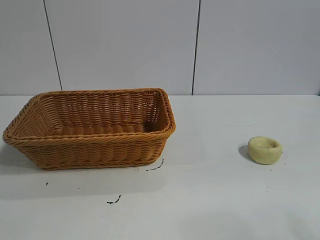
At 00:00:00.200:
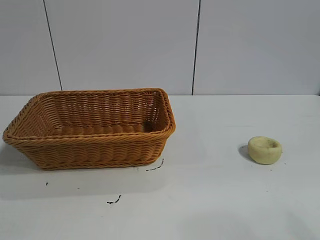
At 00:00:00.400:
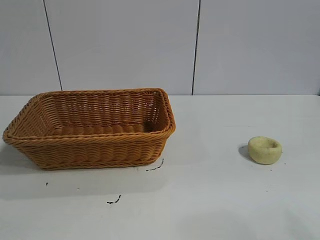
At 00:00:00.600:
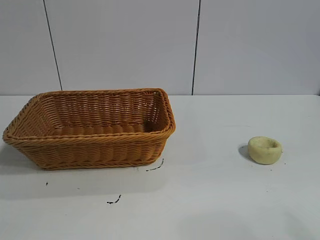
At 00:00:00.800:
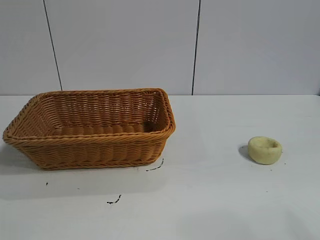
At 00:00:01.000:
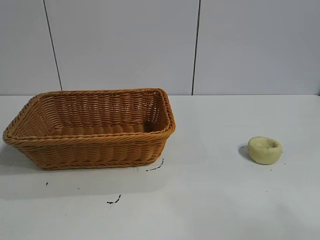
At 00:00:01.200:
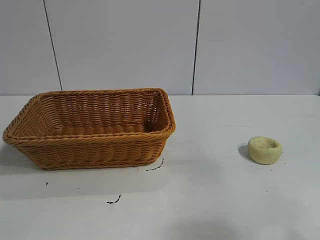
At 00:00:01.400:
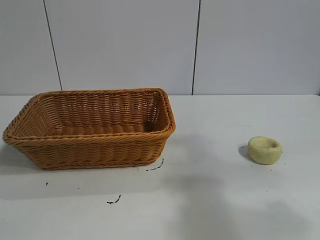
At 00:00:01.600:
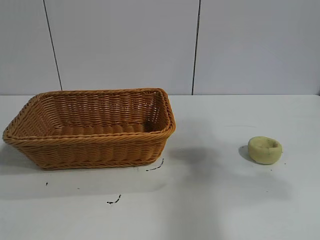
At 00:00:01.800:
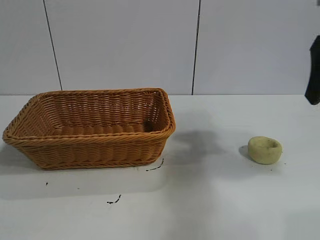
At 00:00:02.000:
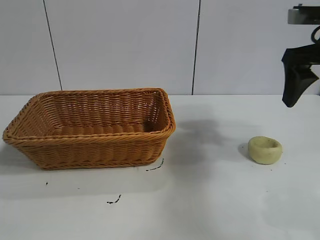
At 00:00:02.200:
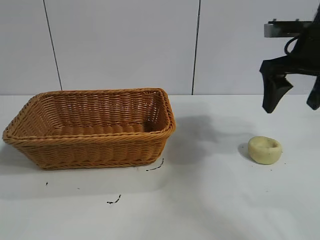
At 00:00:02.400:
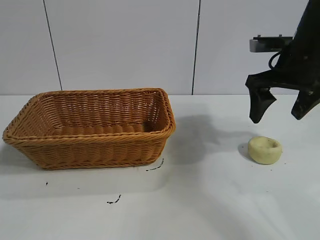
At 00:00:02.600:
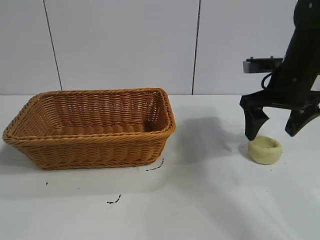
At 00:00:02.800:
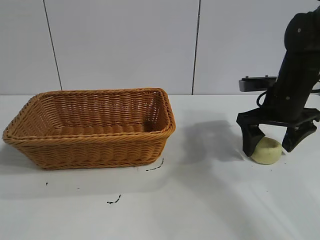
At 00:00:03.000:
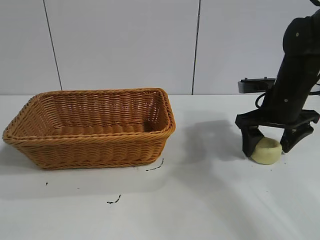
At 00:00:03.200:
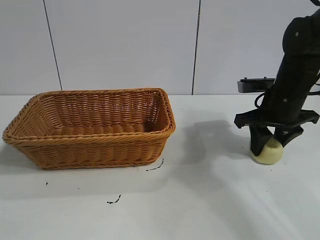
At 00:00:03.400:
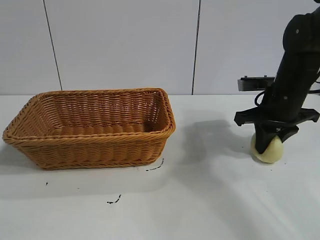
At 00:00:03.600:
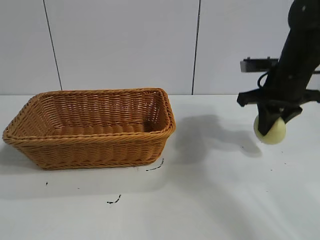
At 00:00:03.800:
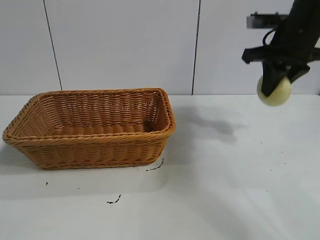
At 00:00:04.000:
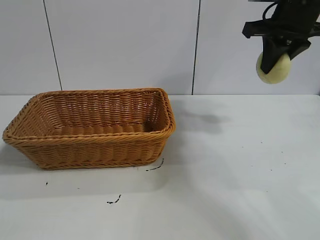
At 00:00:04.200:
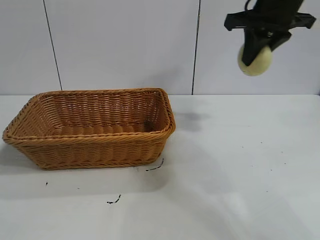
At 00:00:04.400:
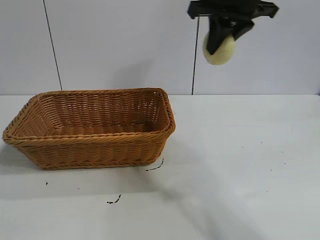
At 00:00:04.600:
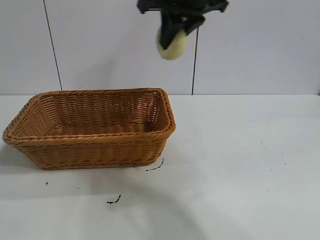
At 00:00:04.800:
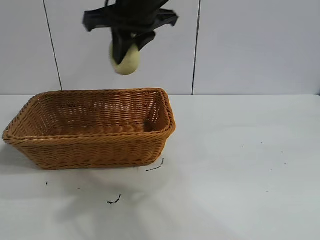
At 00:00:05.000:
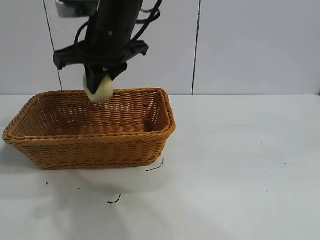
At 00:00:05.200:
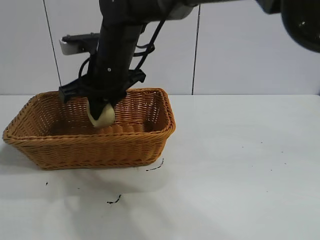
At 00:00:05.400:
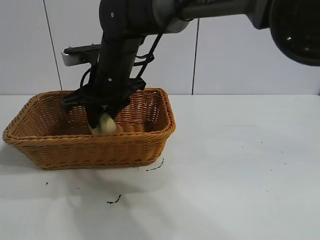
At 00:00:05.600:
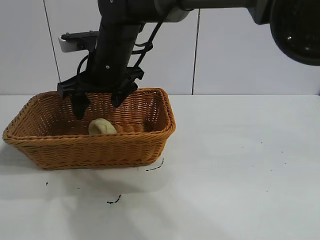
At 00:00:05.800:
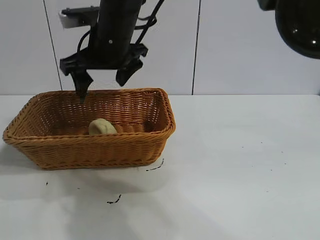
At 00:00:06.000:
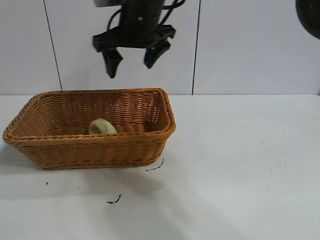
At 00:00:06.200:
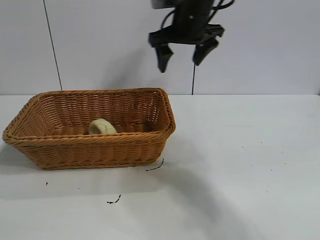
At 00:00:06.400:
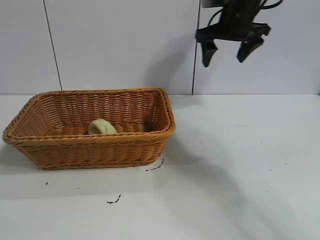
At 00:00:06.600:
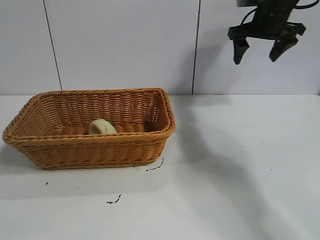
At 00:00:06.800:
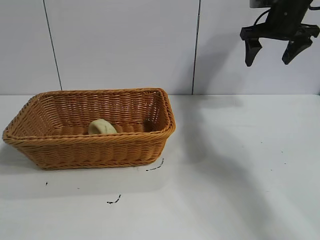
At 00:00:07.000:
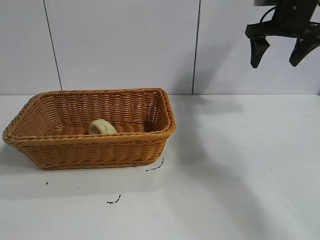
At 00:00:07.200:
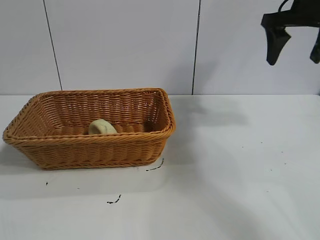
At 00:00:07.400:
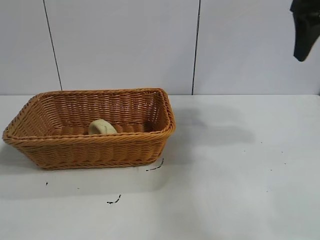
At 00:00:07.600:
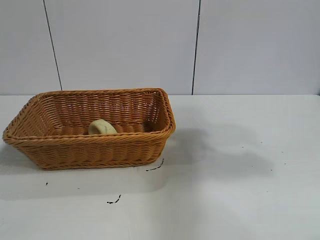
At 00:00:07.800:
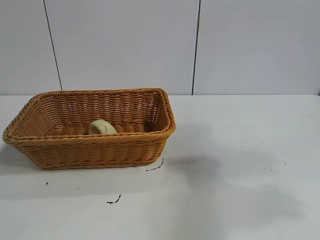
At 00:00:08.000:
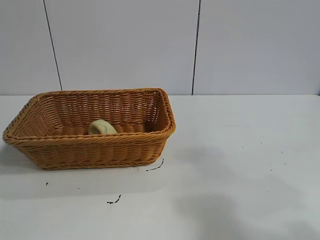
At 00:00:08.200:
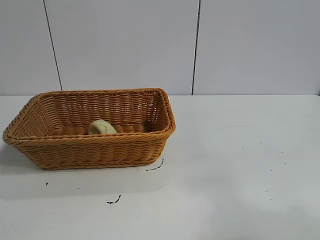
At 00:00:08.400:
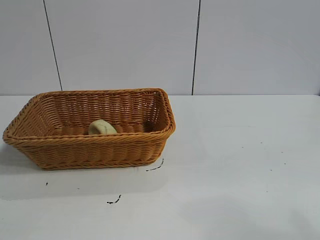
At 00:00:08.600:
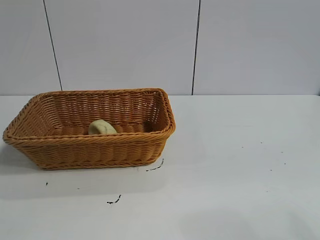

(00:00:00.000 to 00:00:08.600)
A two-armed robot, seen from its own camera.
Task of the whole recording: pick up the egg yolk pastry and put it into the basket.
Step, 00:00:00.000 - 00:00:03.400: Grasp egg yolk pastry with right gripper.
Step, 00:00:03.600 - 00:00:05.400: Place the egg yolk pastry in the basket with right gripper.

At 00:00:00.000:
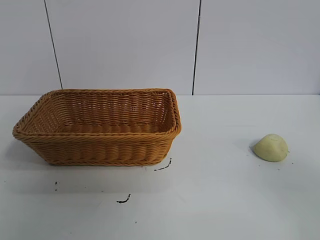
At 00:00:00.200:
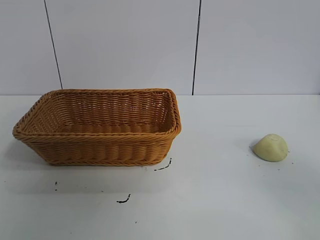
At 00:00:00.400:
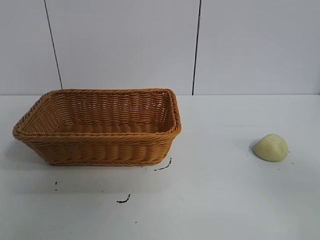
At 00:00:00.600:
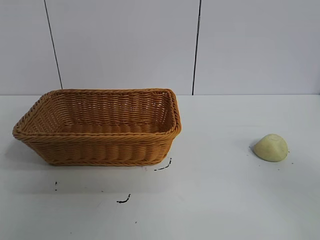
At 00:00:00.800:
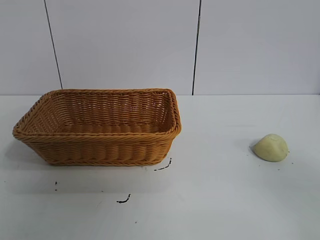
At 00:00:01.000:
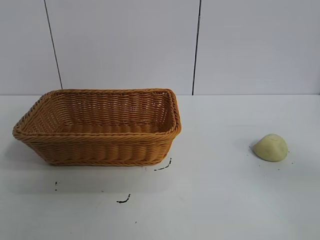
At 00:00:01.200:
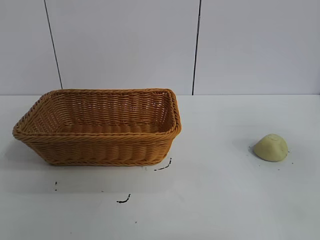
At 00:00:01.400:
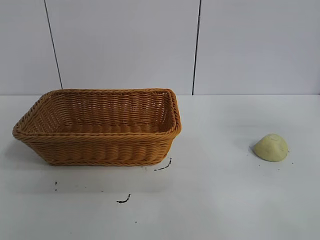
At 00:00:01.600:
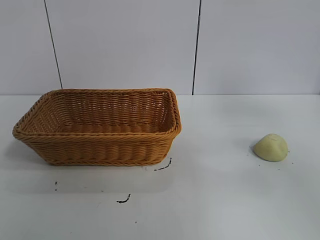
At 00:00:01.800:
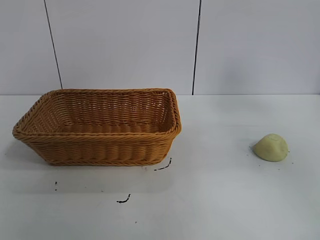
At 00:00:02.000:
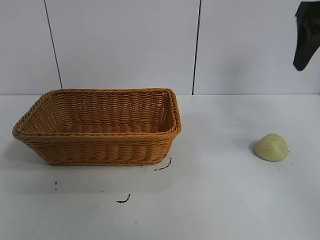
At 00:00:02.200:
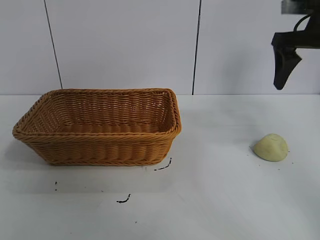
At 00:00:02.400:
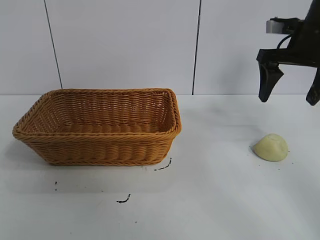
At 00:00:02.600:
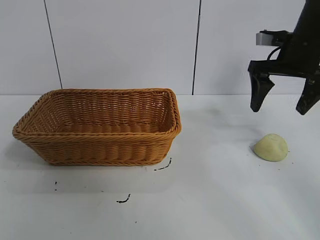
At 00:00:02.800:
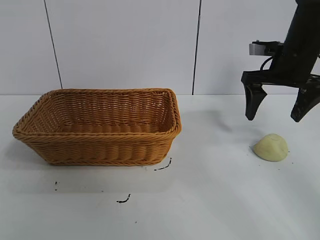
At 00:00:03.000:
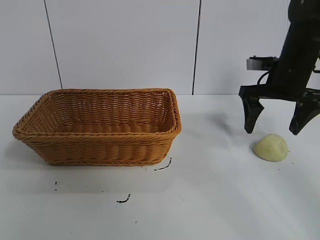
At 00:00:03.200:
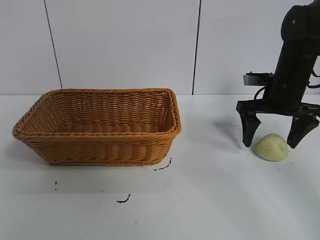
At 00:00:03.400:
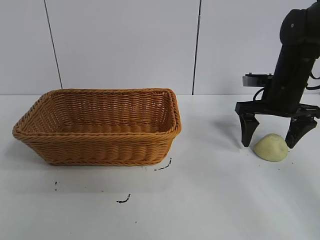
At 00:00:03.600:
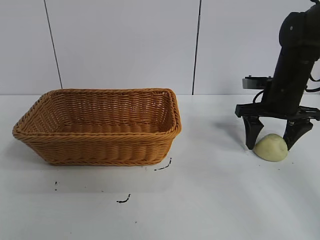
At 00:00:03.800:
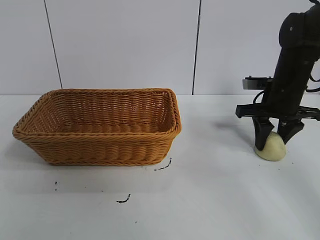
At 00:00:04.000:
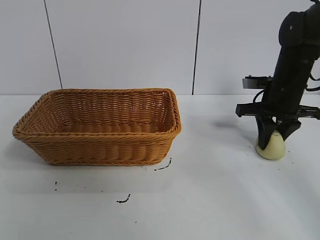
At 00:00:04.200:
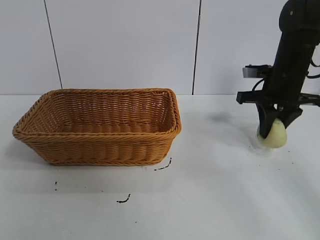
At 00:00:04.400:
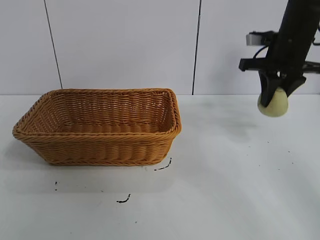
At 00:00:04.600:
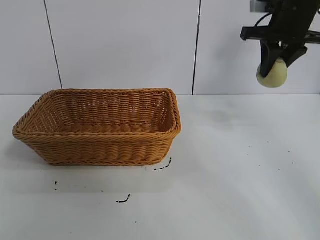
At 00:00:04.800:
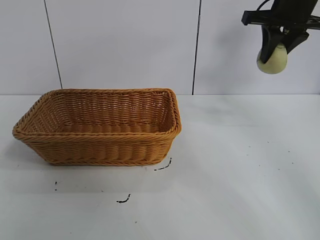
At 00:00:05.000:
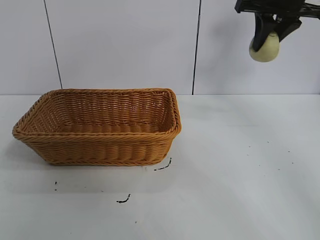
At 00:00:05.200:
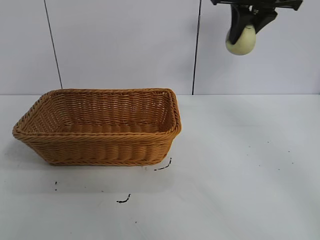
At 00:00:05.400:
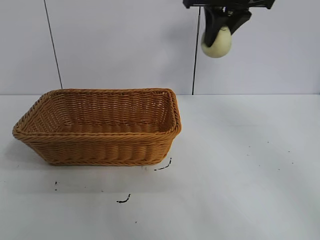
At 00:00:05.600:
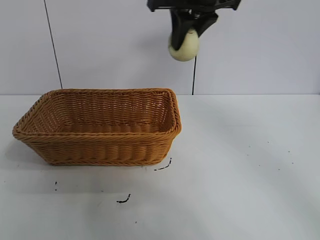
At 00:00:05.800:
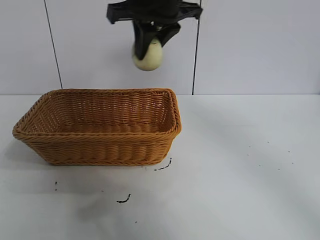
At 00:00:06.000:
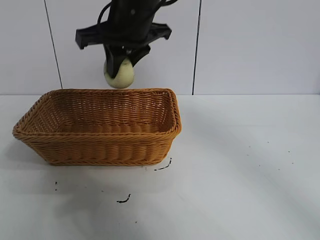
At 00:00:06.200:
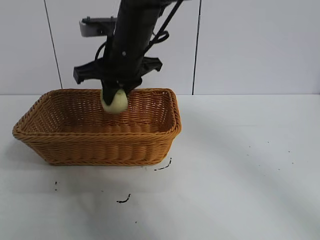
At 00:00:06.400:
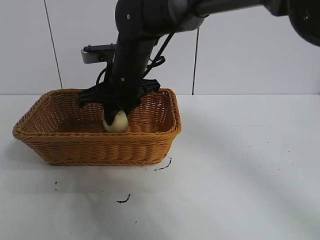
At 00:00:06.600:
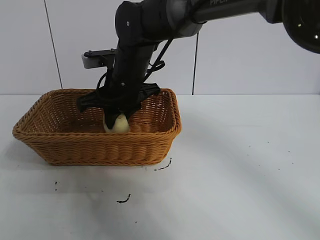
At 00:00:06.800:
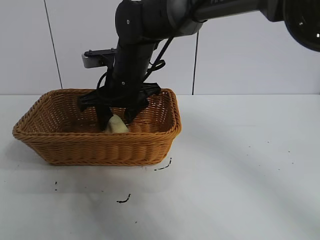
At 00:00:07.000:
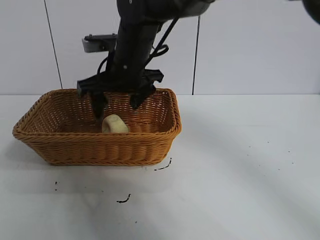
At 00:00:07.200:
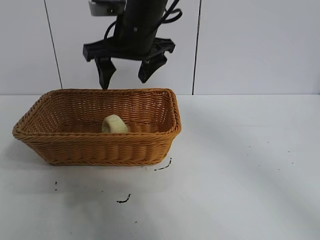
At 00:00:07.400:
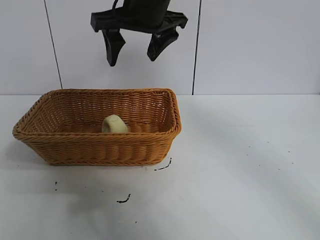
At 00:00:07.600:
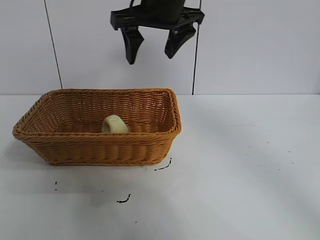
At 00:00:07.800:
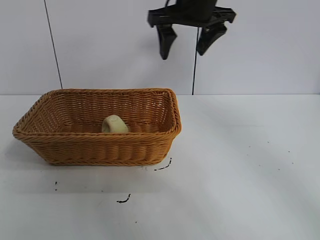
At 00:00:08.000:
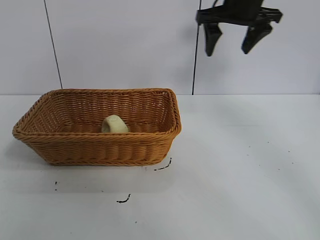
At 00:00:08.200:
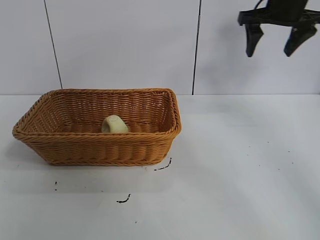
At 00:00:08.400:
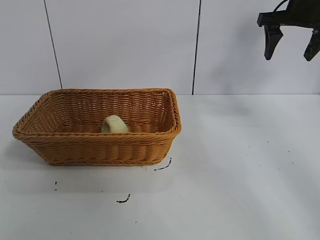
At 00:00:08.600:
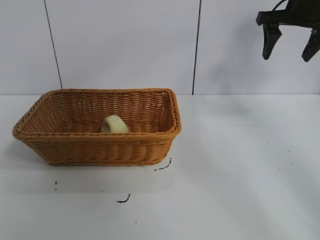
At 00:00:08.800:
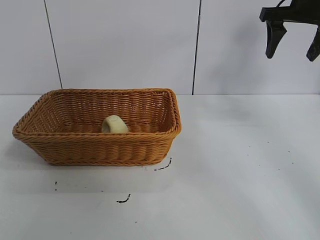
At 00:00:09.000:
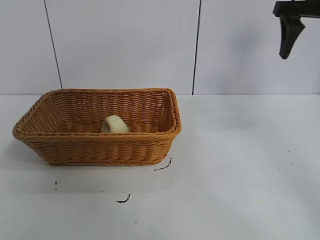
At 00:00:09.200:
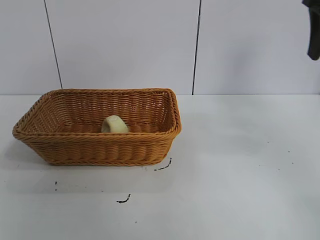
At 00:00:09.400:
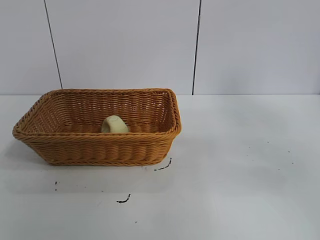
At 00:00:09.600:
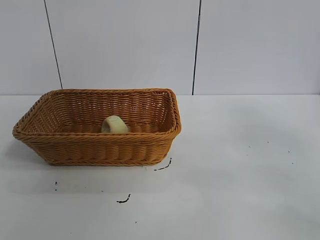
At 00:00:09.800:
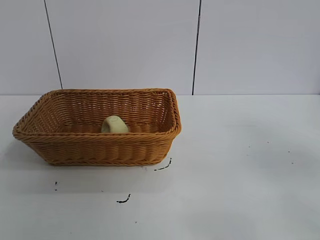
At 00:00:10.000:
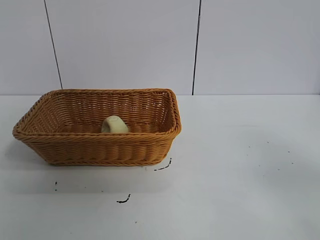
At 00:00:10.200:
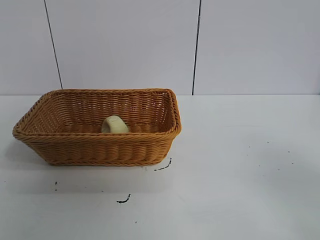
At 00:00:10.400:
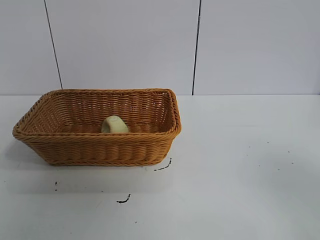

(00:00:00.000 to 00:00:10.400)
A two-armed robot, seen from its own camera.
Task of the whole recording: pick up the egg yolk pastry and put it into the basket.
Step, 00:00:00.800 - 00:00:04.000: Grasp egg yolk pastry with right gripper.
Step, 00:00:04.200 - 00:00:06.800: Place the egg yolk pastry in the basket with right gripper.
